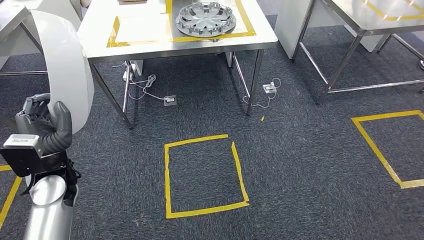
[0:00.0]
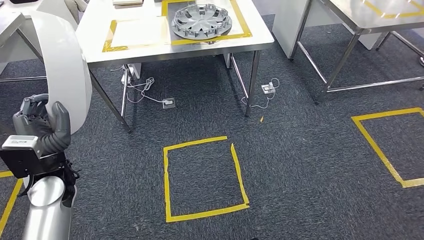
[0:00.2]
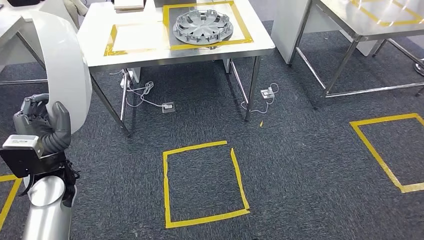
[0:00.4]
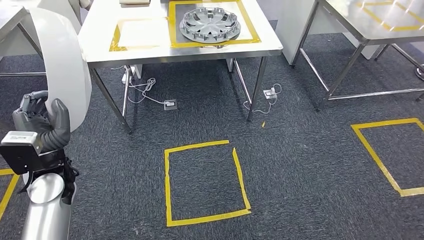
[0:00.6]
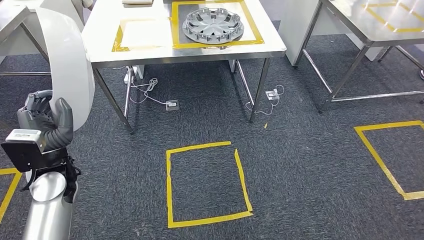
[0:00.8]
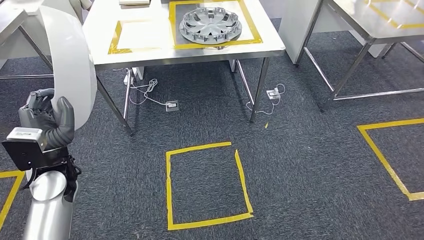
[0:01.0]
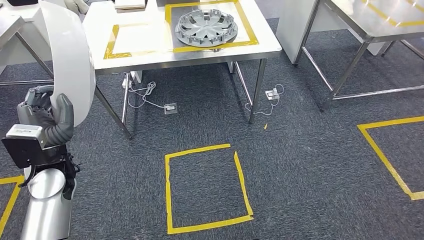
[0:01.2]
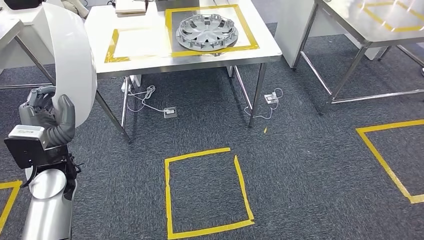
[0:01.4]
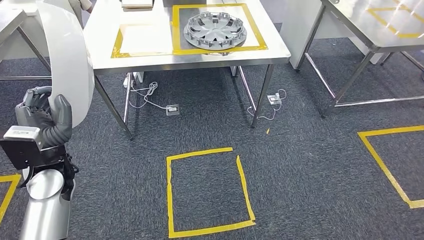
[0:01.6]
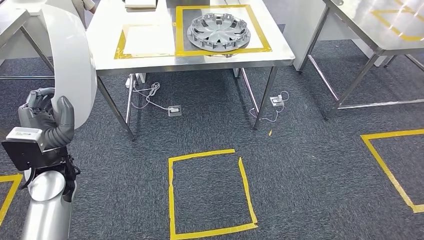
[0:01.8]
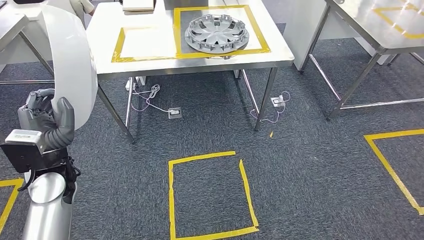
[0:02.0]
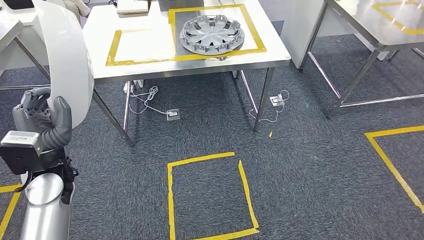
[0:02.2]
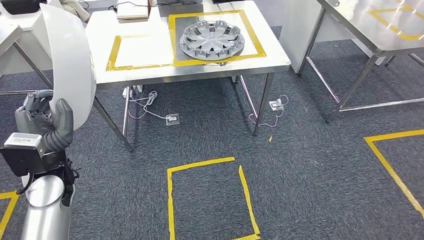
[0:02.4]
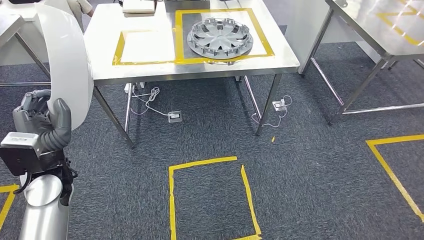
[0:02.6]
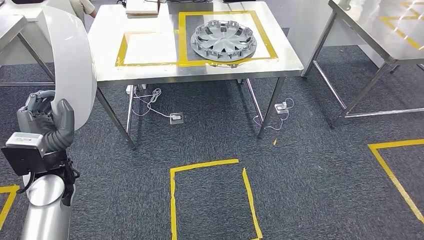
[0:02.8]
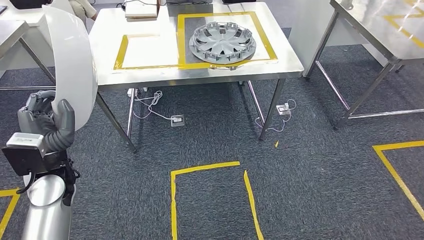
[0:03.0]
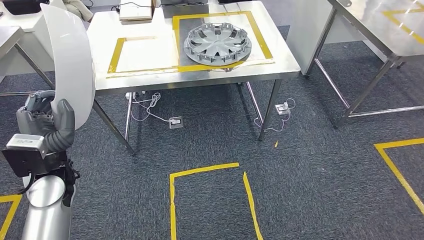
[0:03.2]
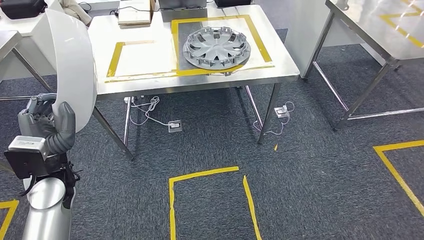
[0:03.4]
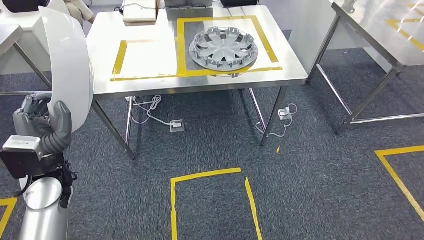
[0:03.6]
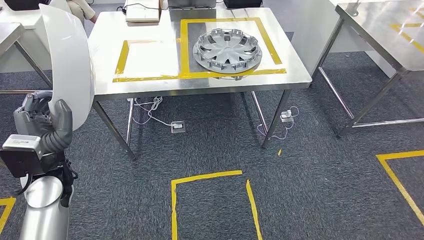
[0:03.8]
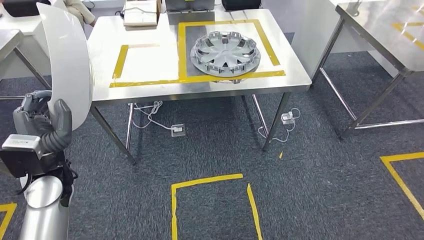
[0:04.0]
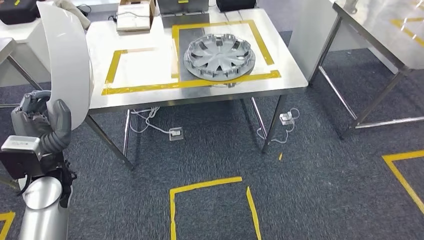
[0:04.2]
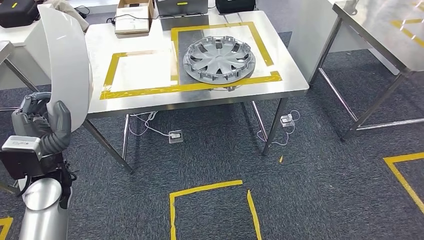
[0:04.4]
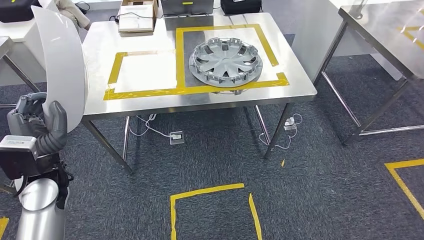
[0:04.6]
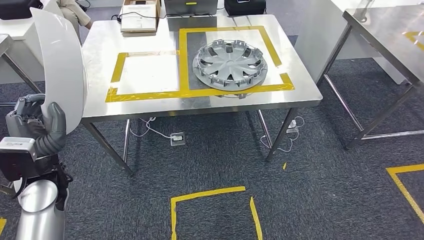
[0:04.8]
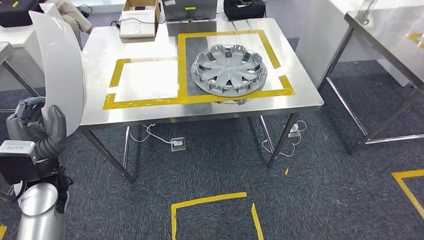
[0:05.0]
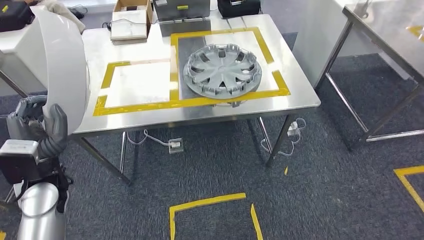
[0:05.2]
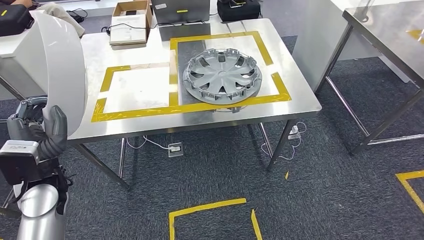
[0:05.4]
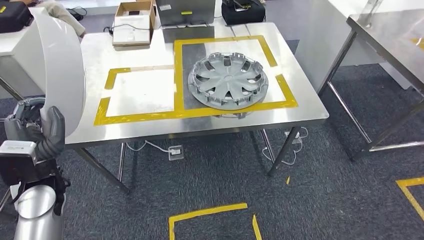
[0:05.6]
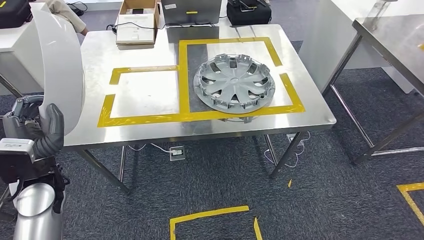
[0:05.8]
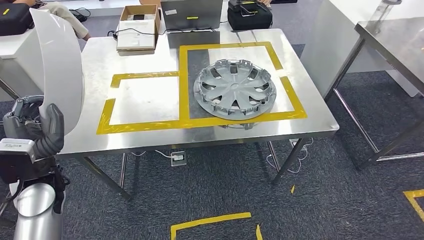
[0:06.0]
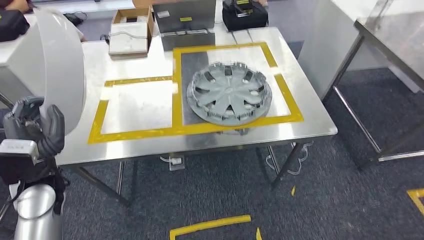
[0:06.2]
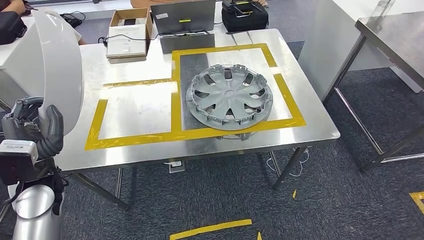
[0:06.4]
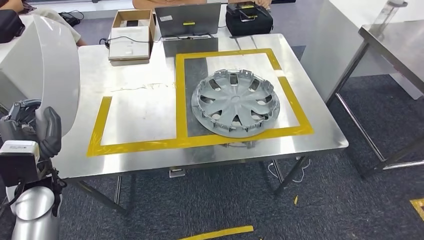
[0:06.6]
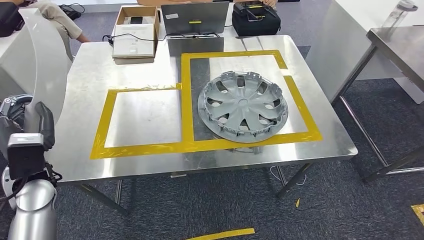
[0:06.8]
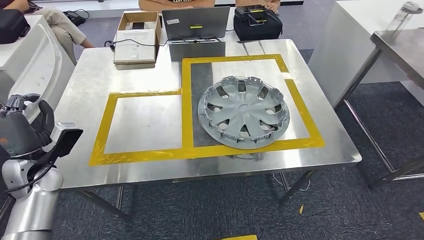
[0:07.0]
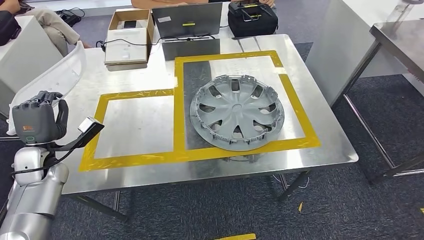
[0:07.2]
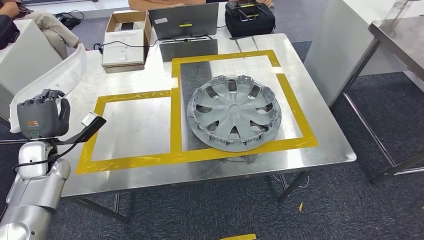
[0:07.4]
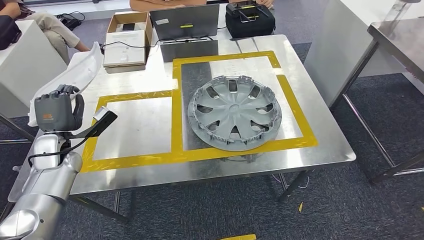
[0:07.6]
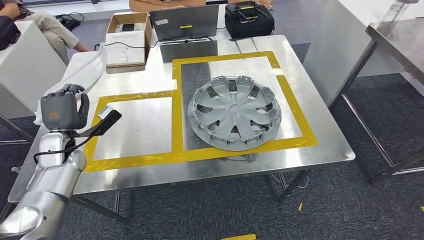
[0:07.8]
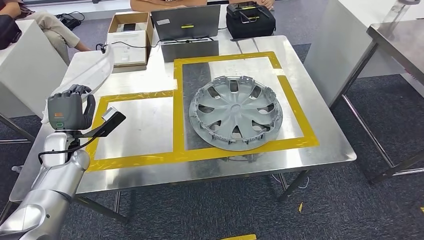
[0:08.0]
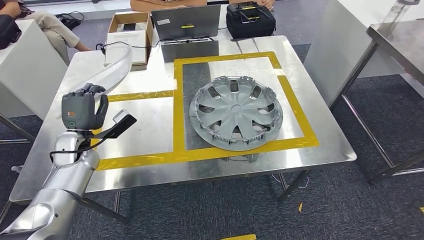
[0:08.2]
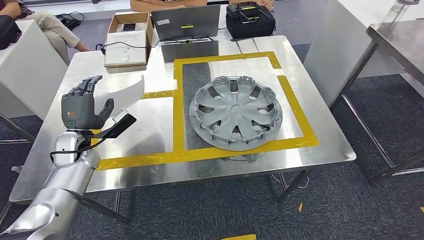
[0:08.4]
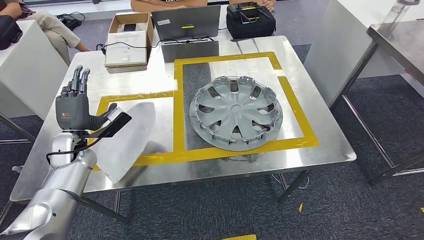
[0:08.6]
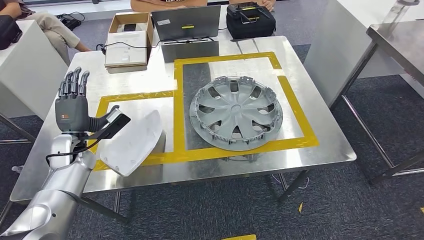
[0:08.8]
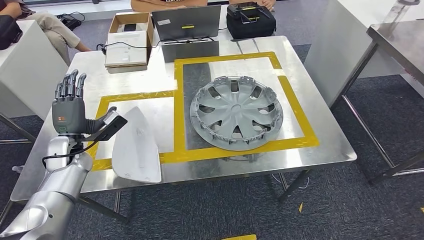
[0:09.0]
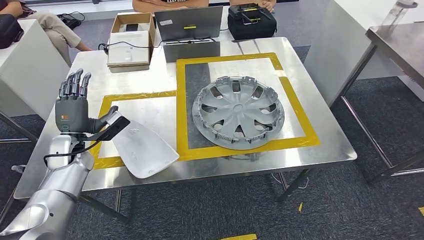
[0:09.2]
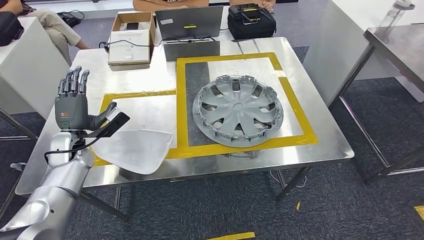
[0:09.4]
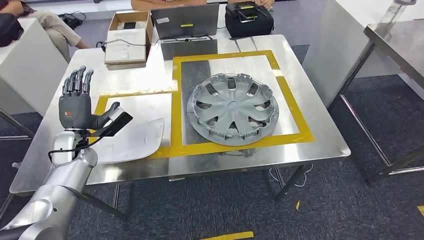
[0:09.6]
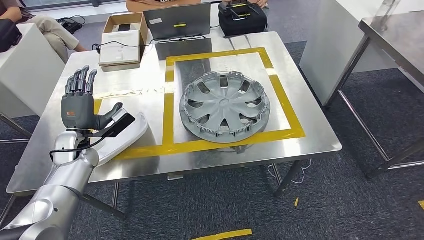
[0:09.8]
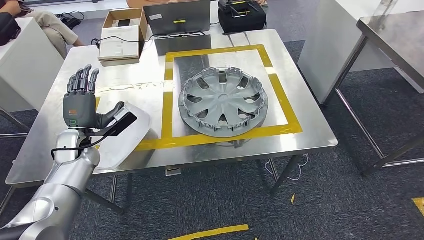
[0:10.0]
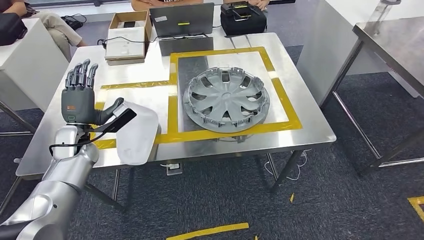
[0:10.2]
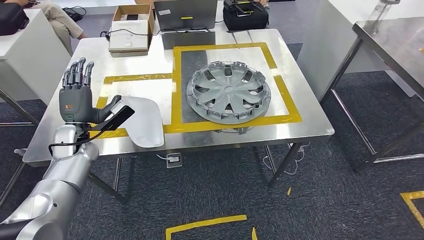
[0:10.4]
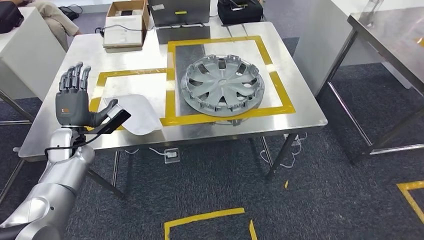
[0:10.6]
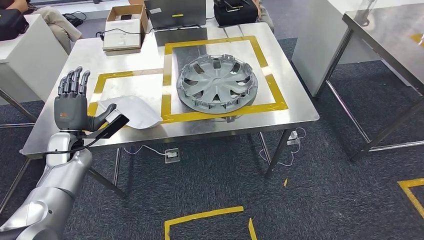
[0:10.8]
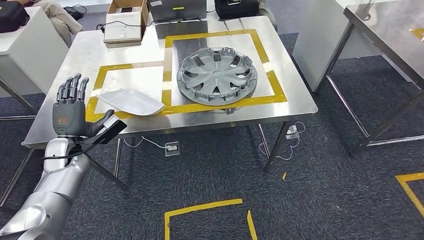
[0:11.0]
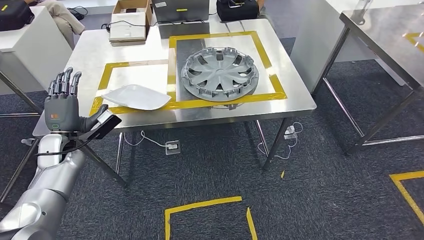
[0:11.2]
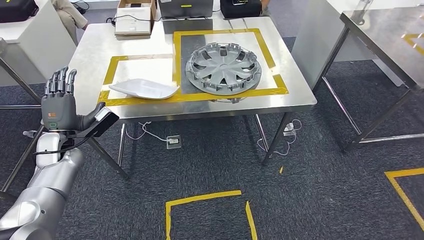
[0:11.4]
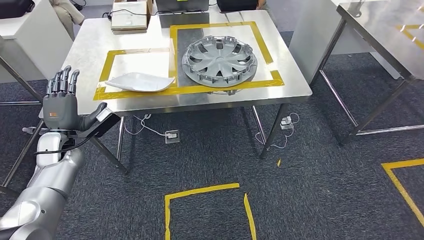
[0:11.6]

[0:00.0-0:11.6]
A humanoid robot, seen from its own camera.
Step, 0:00.0 to 0:06.8: Move the small component to the workbench.
Step, 0:07.2 to 0:09.6: Insert the small component into the corresponding slot on the workbench.

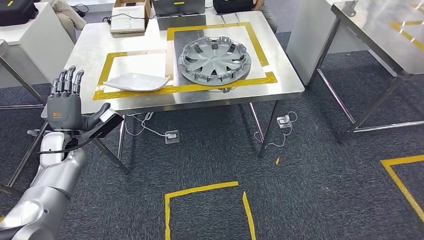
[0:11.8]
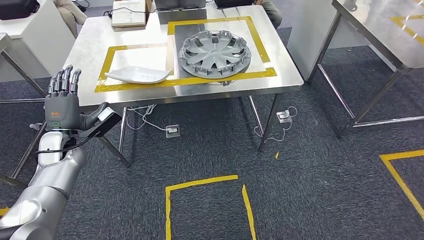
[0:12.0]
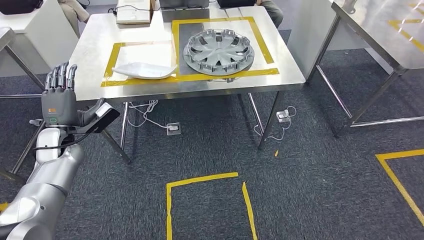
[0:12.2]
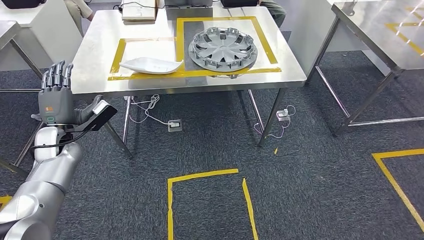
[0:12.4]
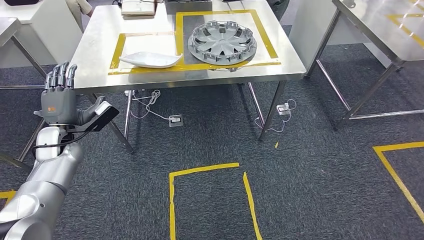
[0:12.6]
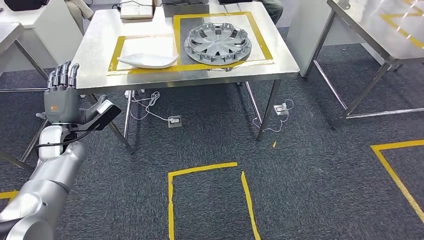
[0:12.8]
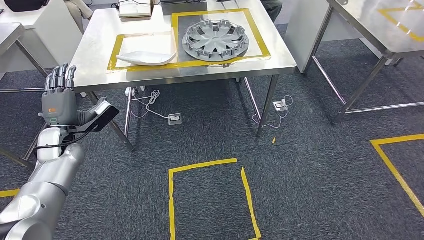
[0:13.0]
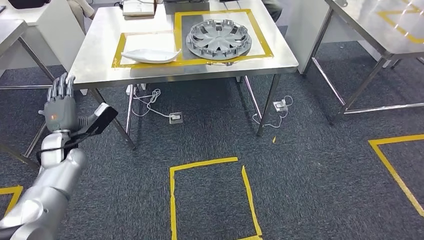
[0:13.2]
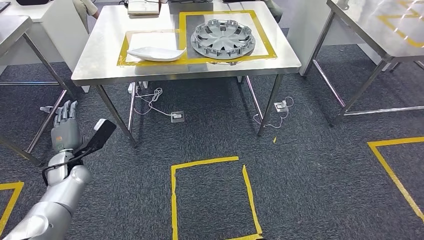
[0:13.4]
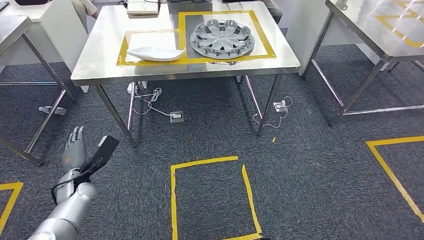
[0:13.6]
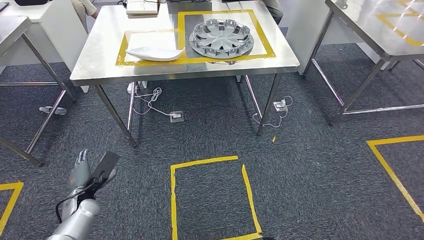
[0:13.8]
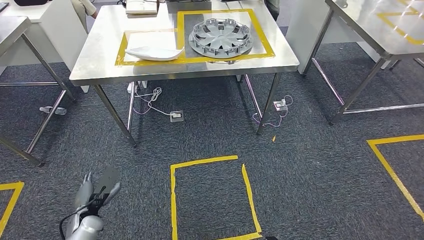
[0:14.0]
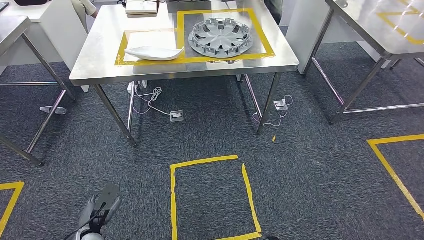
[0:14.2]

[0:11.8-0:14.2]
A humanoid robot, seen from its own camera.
Step, 0:11.8 to 0:14.2: Move to the initial position at the workbench.
